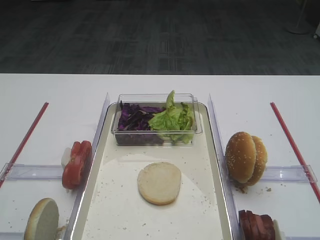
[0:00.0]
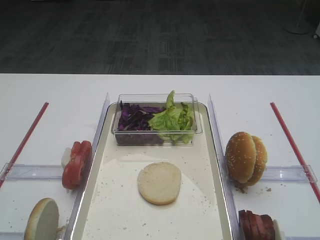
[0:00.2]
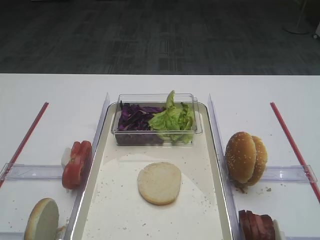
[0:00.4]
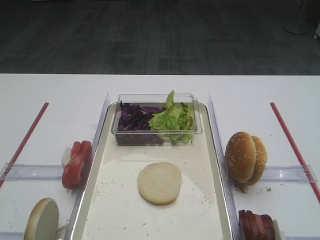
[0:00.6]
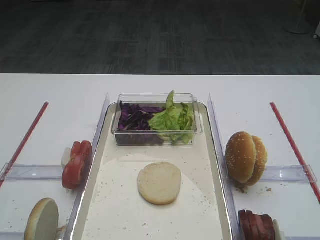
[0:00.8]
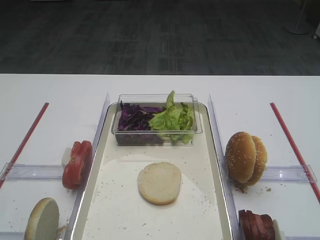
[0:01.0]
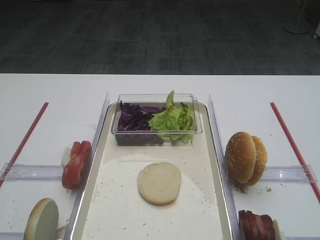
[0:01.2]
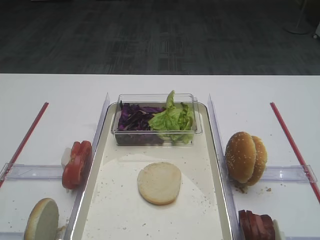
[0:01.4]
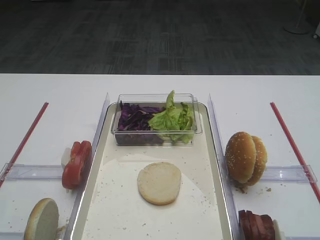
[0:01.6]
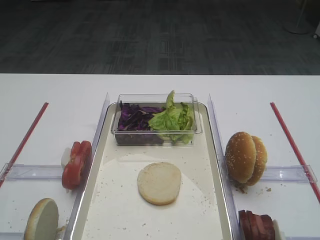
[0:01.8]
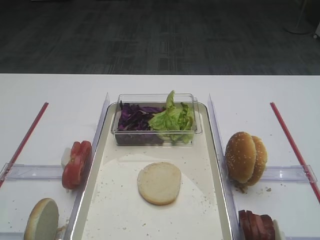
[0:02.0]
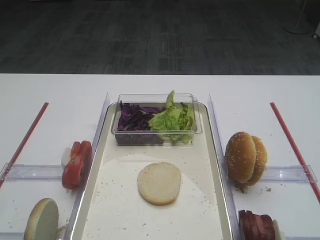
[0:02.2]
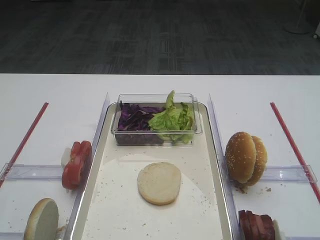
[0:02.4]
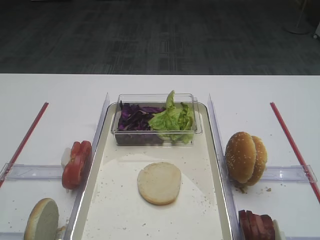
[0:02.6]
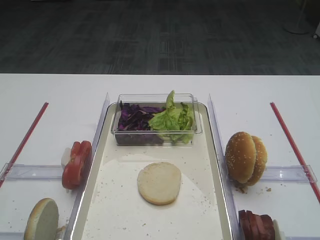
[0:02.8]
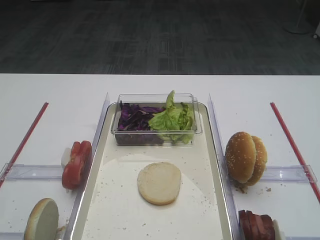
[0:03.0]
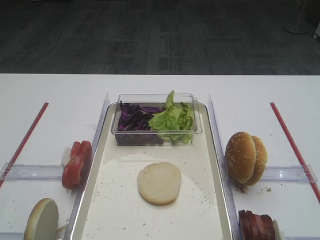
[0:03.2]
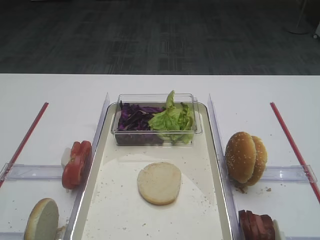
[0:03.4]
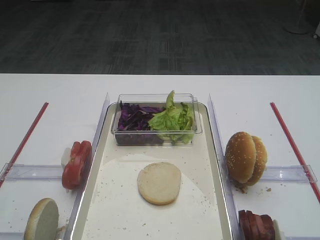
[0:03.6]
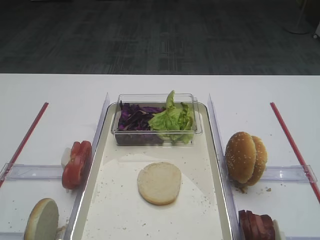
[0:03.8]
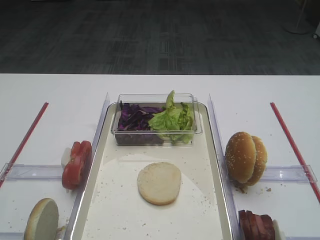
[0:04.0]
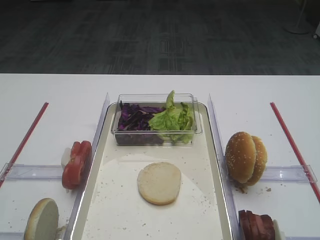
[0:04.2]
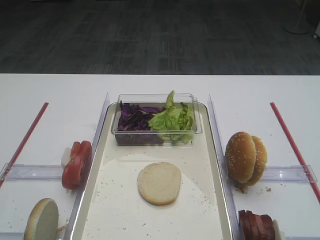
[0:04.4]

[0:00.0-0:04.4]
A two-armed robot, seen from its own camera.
0:01.4 to 0:04.4: The two grippers keep their place.

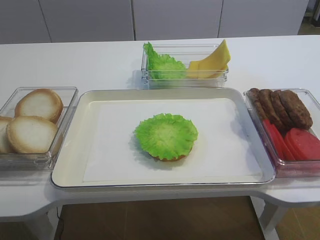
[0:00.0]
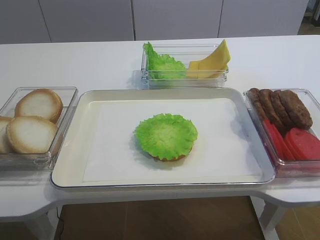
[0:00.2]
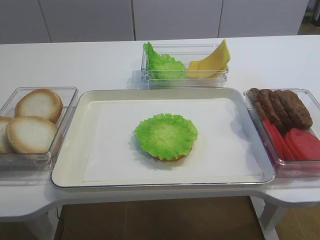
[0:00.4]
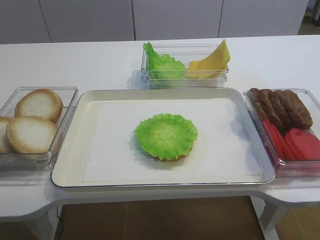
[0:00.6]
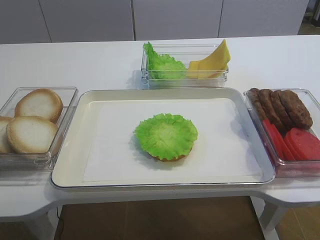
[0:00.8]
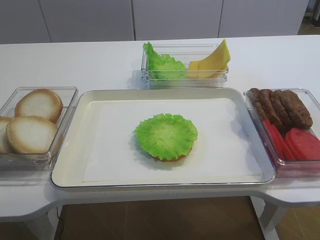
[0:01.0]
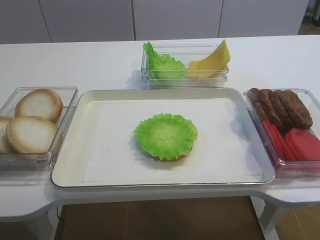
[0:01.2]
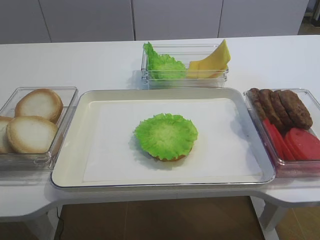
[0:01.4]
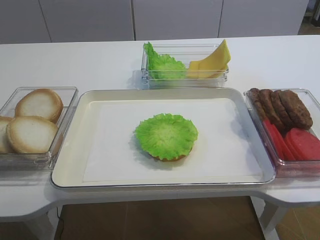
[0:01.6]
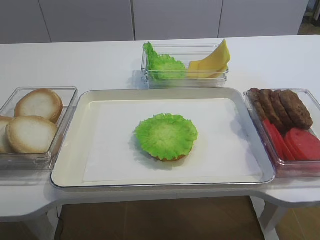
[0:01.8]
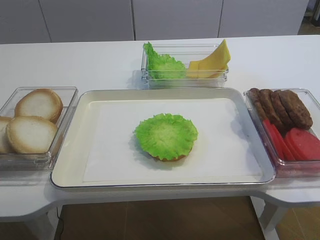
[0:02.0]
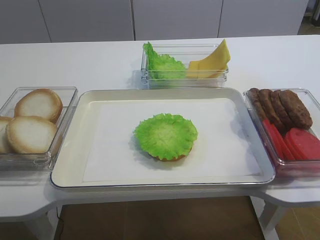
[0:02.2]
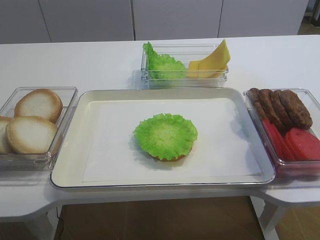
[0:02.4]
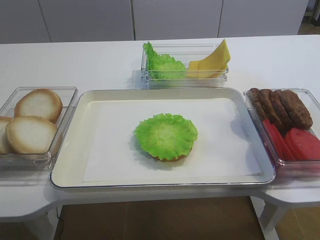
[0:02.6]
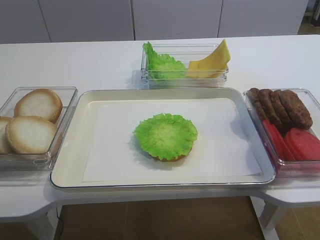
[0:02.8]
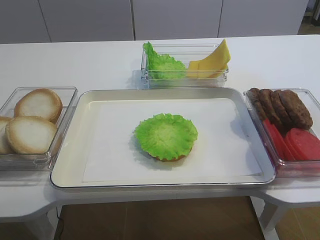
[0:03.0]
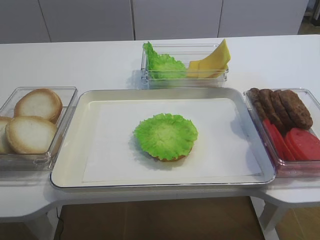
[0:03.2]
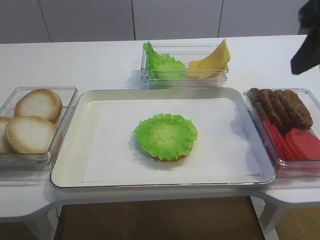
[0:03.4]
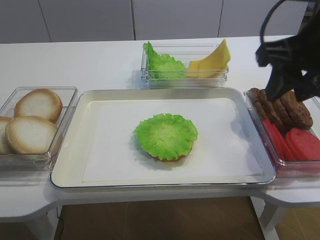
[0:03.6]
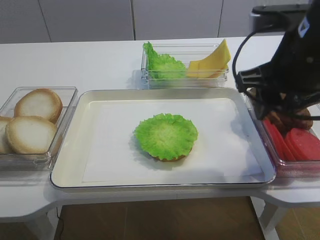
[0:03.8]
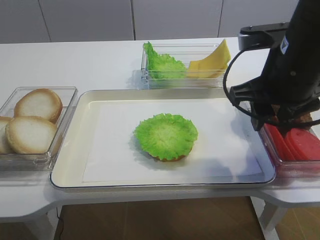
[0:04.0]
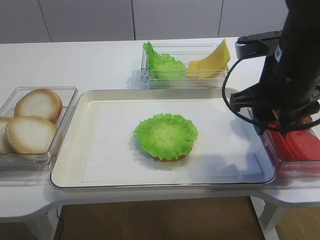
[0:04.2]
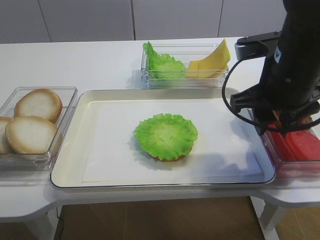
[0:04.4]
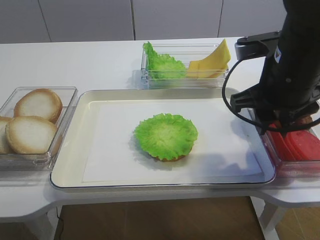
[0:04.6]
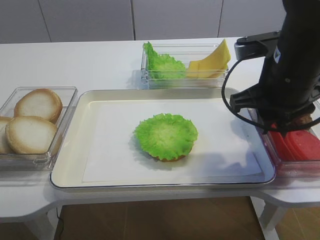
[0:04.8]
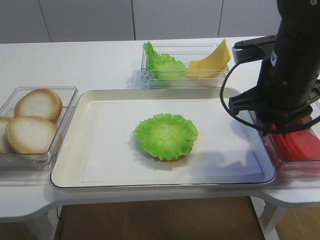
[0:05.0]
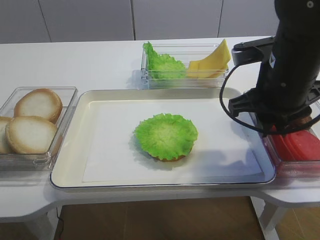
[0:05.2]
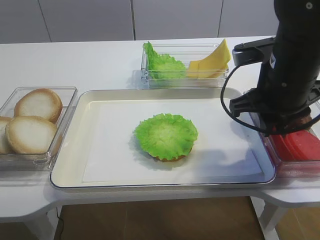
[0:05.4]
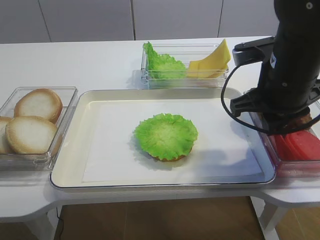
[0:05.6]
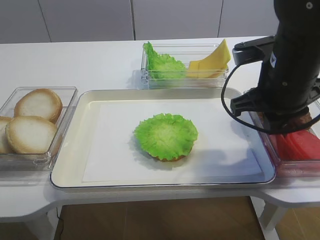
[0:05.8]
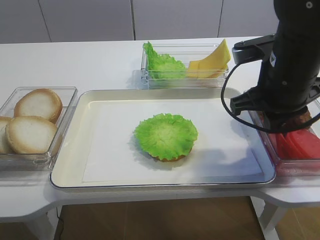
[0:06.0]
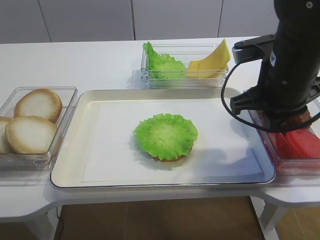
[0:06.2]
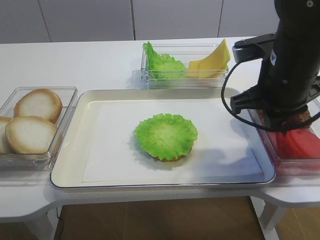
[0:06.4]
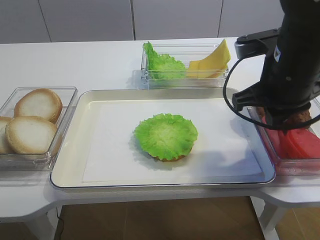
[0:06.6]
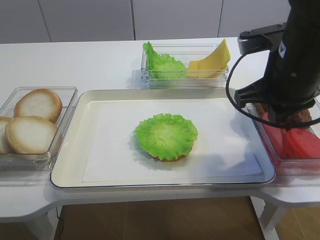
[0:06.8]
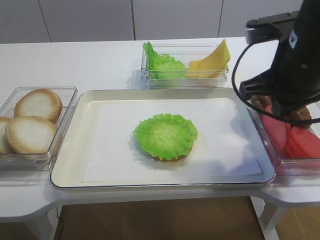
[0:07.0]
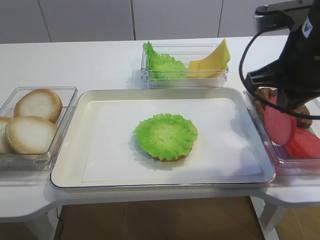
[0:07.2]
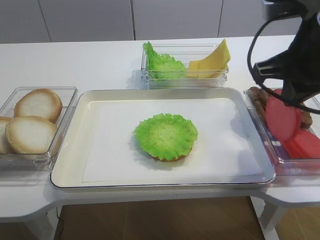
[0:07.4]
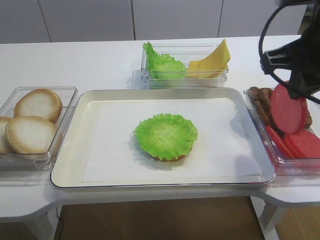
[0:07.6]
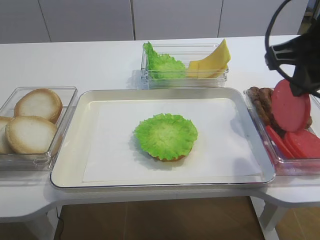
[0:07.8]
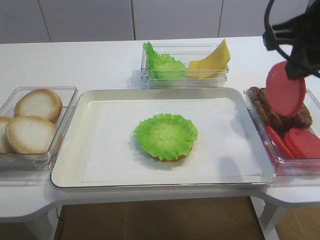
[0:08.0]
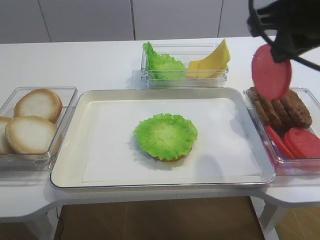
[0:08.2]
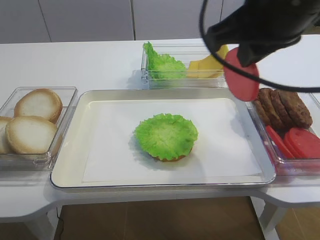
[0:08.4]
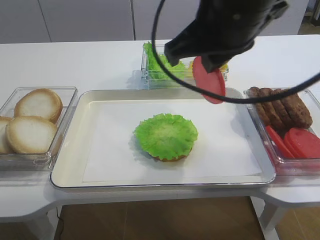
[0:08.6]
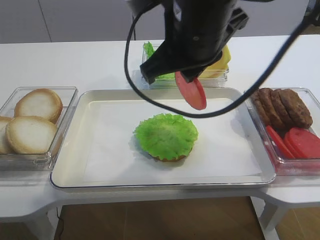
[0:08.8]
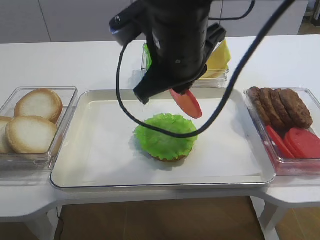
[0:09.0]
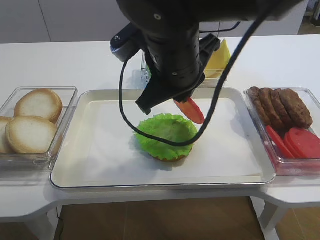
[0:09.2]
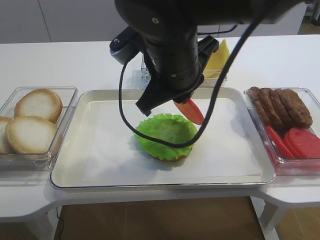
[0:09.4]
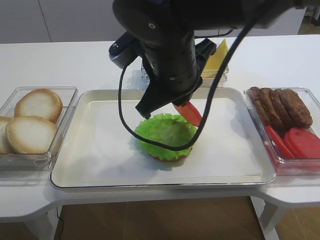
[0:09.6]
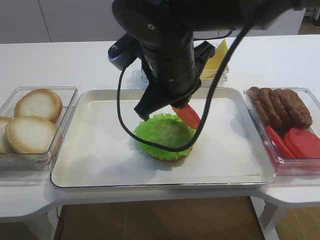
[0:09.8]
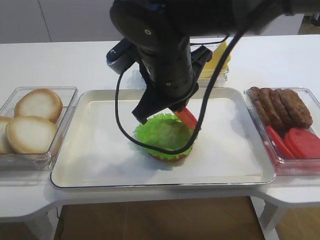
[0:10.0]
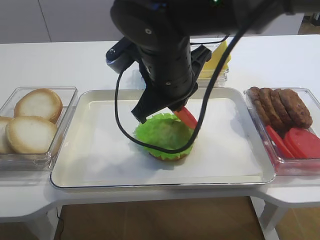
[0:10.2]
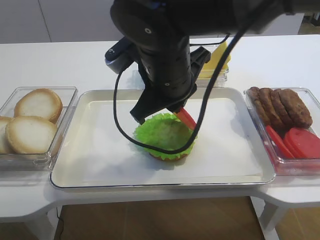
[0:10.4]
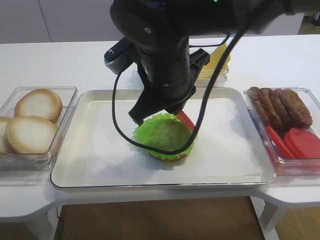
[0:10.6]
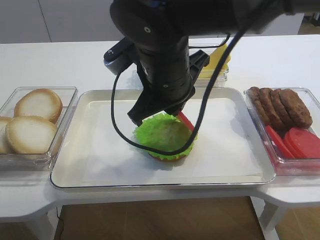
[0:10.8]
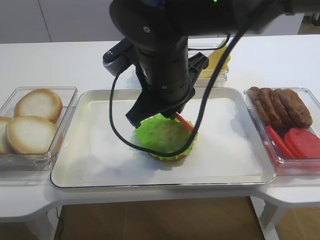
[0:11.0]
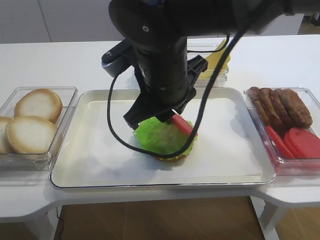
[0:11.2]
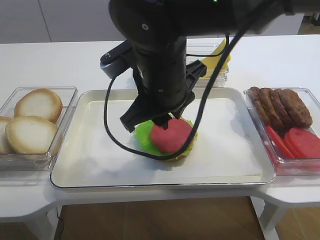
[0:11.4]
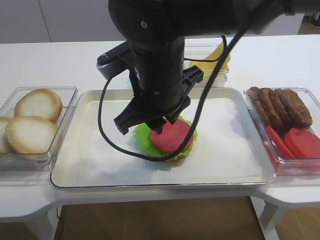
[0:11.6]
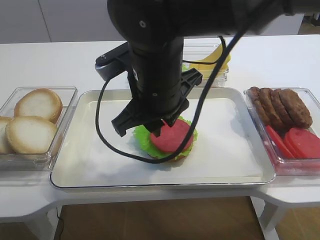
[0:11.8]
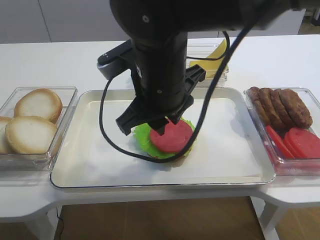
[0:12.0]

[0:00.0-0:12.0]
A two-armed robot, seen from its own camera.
Step, 0:00.0 to 0:07.0: Pick up the tomato slice with the right gripper.
Step, 0:07.2 to 0:11.4: Place the tomato slice on the lettuce leaf with the right gripper.
0:01.6 to 0:03.0: The right gripper shifts roughly 20 cm forward and upward.
0:03.0 to 0:04.4: The right gripper travels downward, forward and to the left by approximately 20 cm.
0:04.4 to 0:06.0: The right gripper closes.
0:06.0 to 0:07.6: The right gripper shifts roughly 5 cm upward.
0:07.6 to 0:09.0: The right gripper heads to the left, covering some 15 cm.
0:09.0 to 0:10.4: The grippers stay close to where they were, moving slightly.
0:10.4 to 0:12.0: The right gripper opens up.

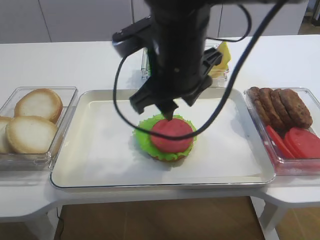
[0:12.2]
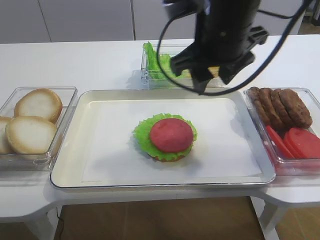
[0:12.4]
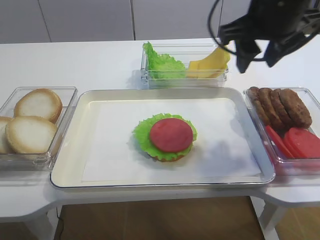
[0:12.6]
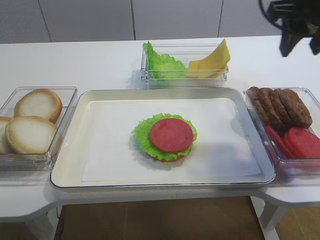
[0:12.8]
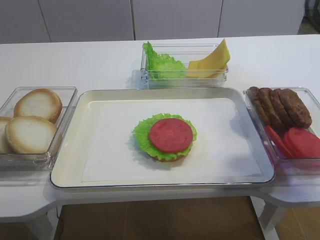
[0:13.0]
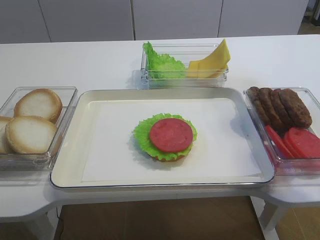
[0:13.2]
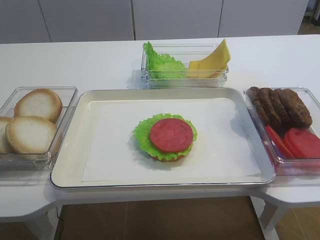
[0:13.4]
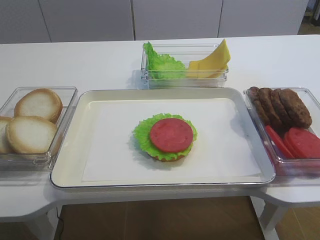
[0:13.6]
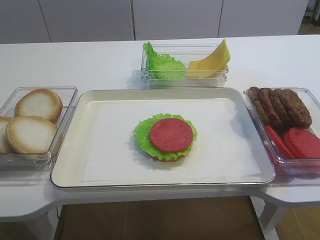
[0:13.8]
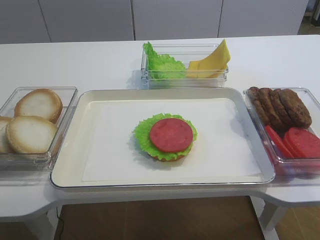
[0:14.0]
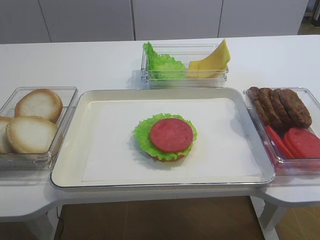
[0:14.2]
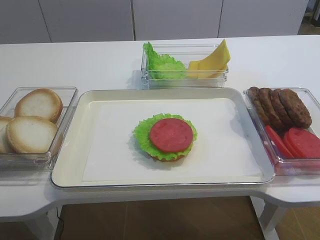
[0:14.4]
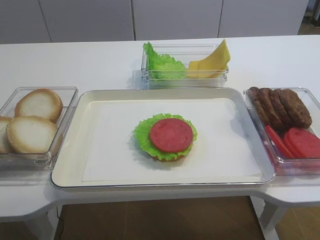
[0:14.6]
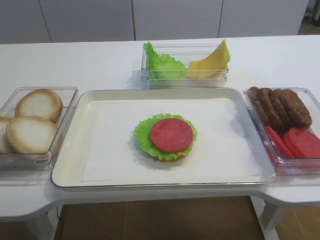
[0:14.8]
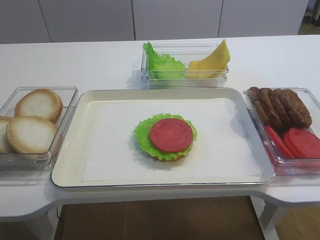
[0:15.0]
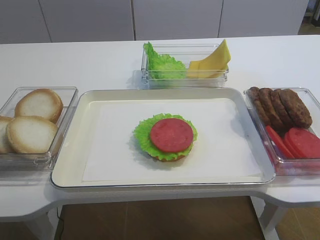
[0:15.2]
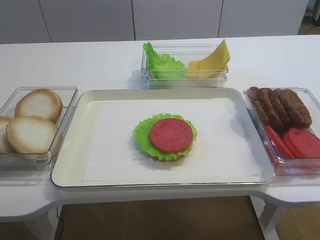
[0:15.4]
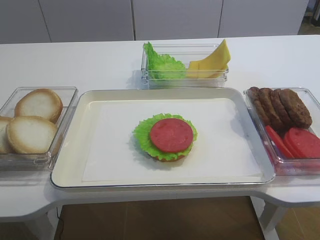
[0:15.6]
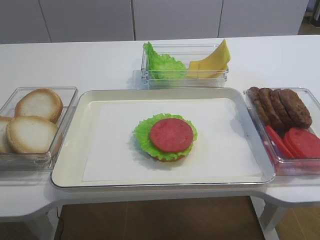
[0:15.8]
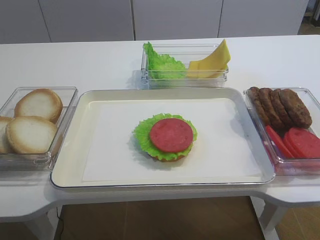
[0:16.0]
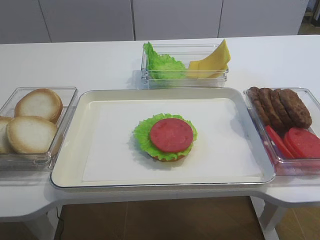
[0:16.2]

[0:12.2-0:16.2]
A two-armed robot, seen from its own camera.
0:12.2 to 0:13.6: The right gripper goes some 30 cm to the right and backward.
0:13.6 to 0:14.8: The right gripper is displaced backward by about 15 cm.

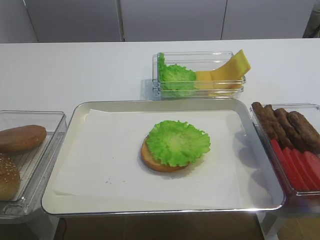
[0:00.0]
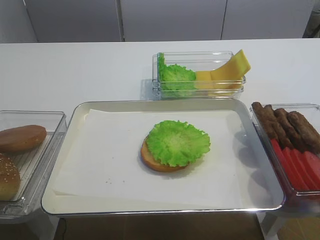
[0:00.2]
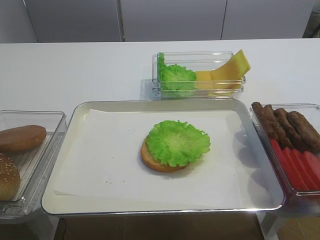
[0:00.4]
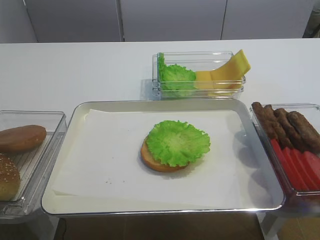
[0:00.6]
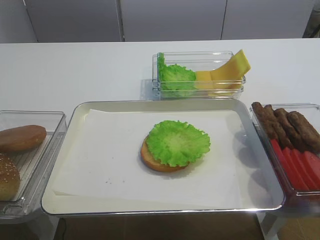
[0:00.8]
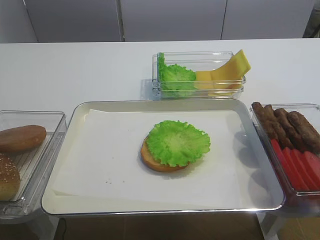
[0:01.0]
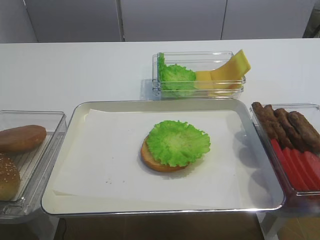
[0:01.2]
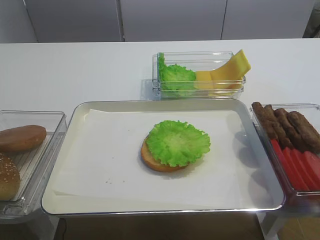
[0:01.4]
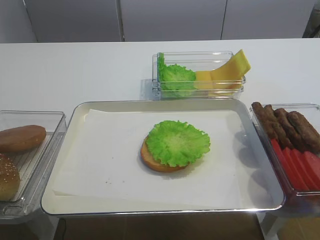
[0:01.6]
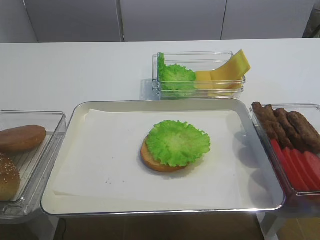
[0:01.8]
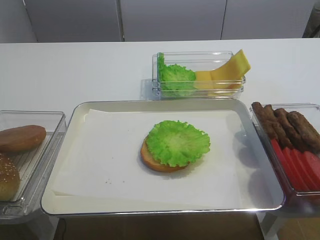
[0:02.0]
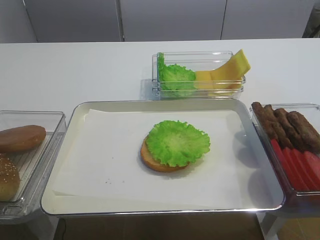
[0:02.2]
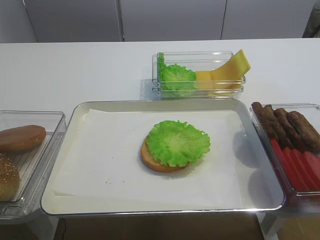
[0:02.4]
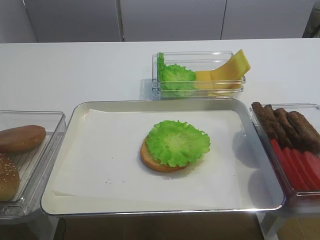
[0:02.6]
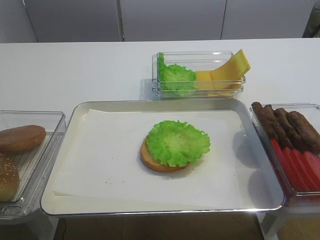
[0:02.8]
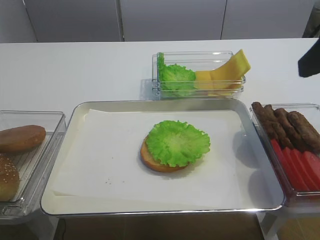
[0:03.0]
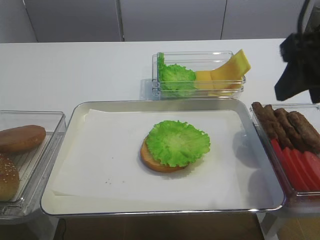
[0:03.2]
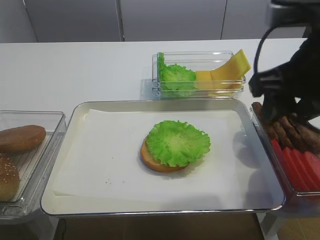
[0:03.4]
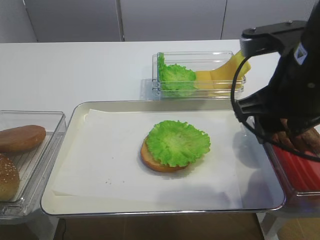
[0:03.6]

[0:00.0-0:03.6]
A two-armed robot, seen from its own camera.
0:01.8 to 0:03.6: The right gripper travels forward and to the left by roughly 25 cm.
